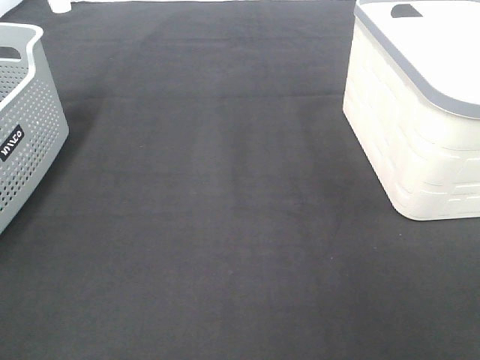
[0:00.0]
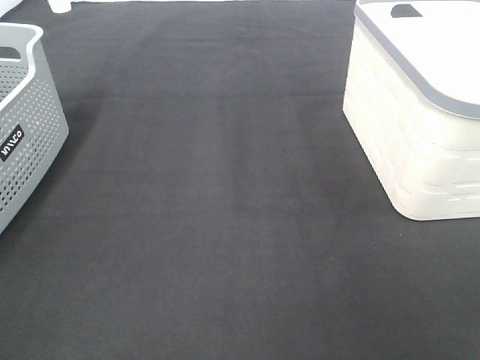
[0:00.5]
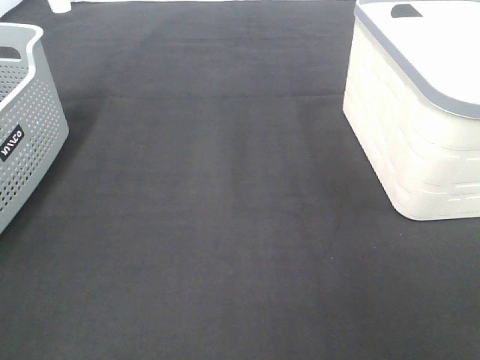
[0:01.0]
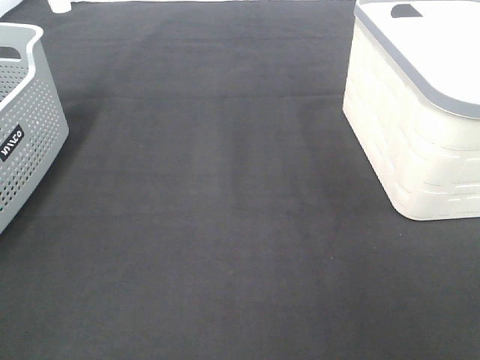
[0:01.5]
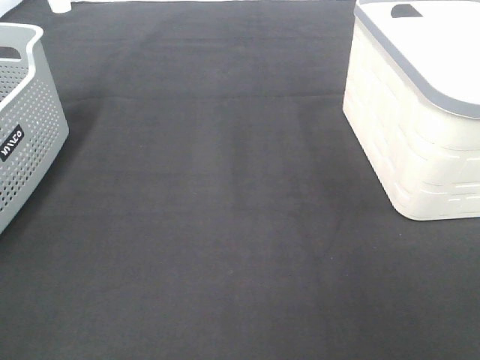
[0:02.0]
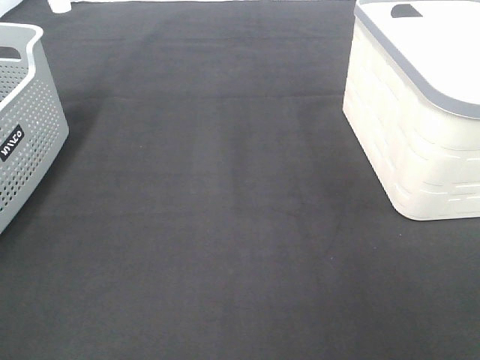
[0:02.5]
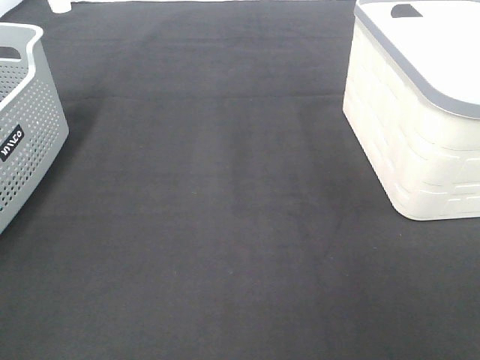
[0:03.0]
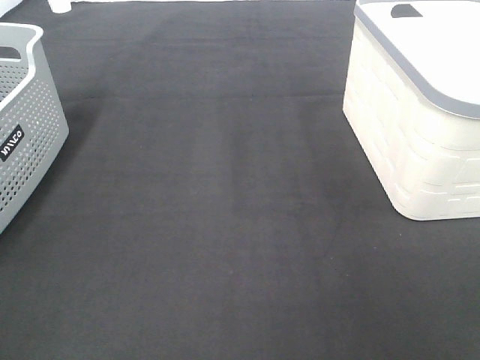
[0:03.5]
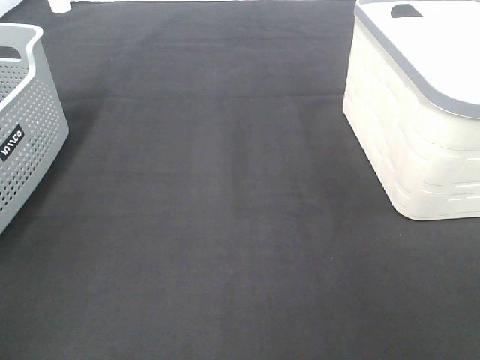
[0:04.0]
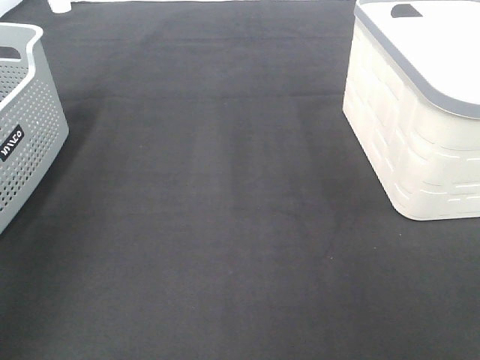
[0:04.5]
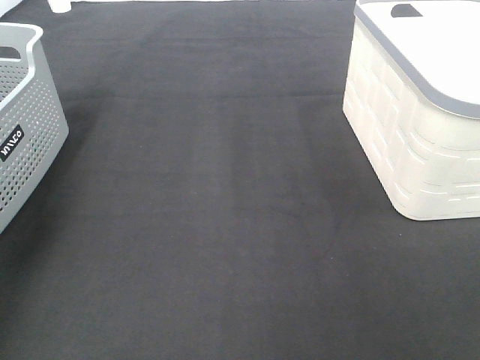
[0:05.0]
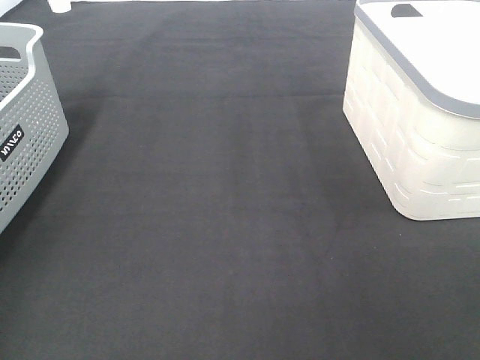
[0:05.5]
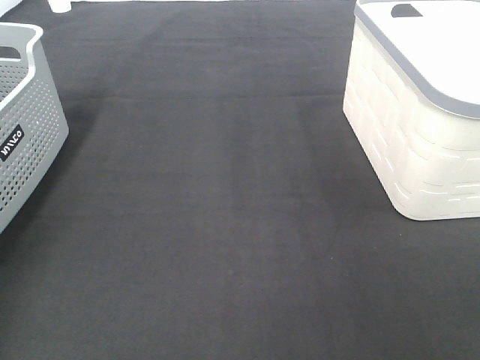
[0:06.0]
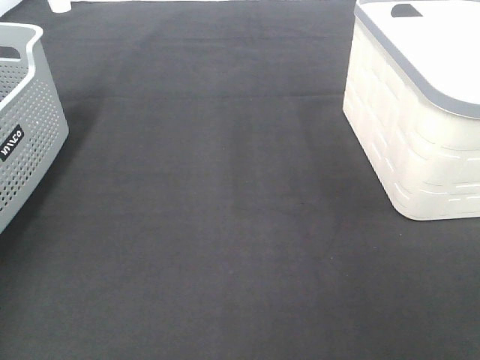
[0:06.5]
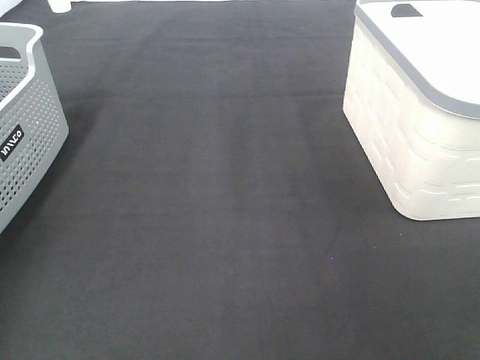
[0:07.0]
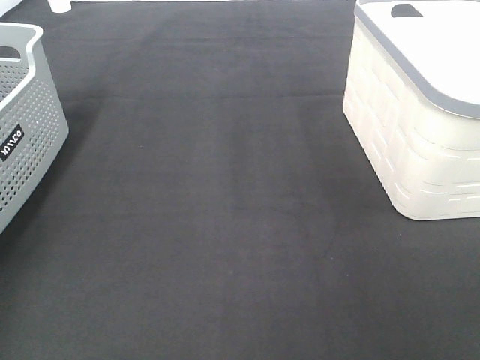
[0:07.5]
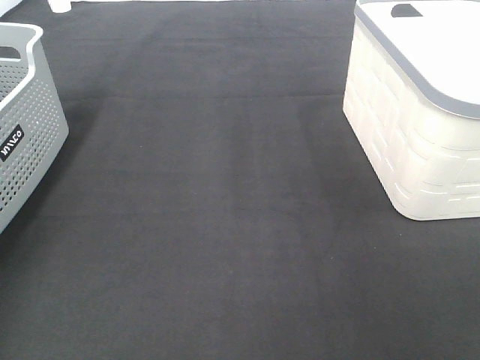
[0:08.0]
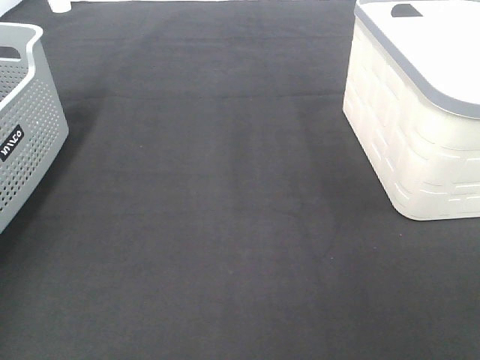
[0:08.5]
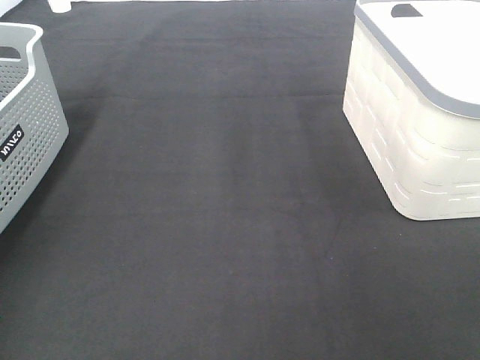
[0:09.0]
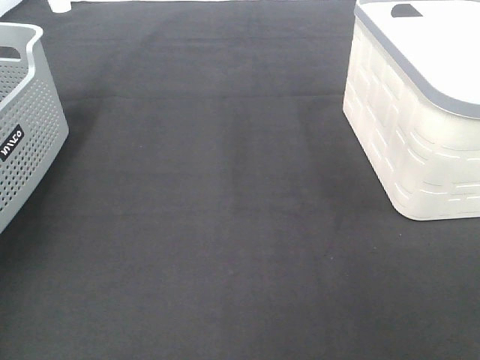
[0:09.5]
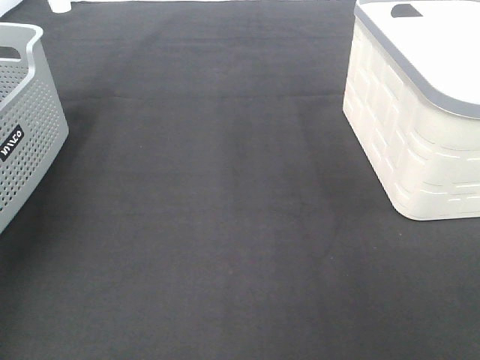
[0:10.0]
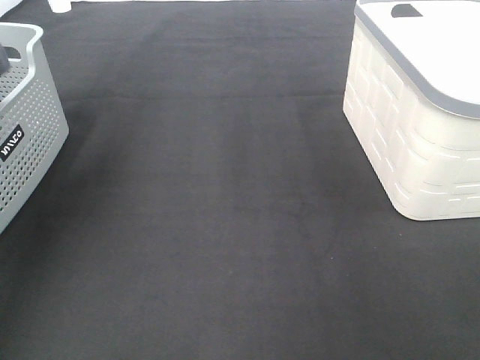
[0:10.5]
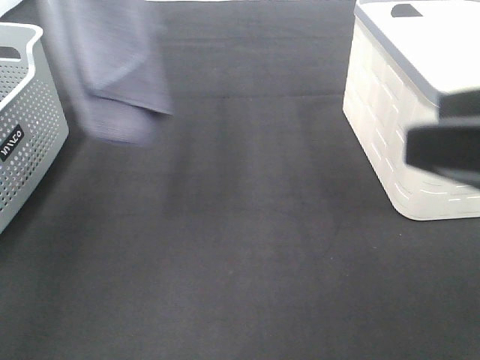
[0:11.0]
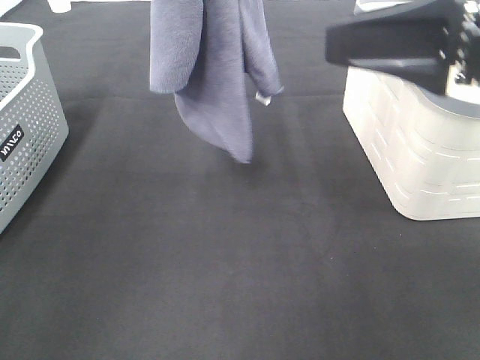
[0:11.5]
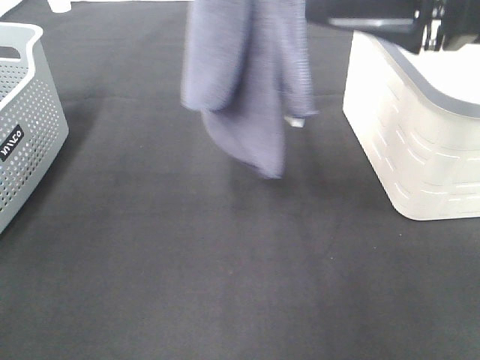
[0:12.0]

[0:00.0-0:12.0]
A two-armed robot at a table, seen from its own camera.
Task of the whole recording: Remove the towel and place it.
0:00.0 to 0:02.0: Neither gripper changes place.
0:10.0 to 0:12.0: The left gripper is displaced to the right by roughly 25 cm. The right gripper is displaced forward by about 25 cm.

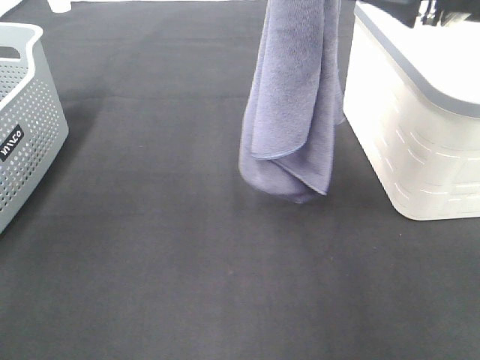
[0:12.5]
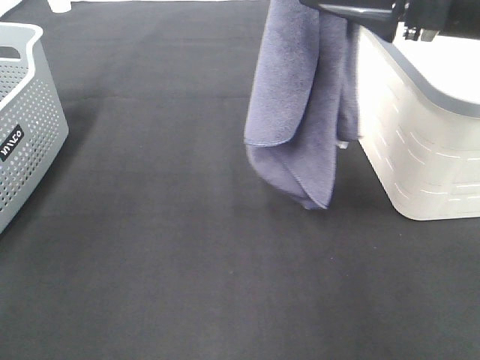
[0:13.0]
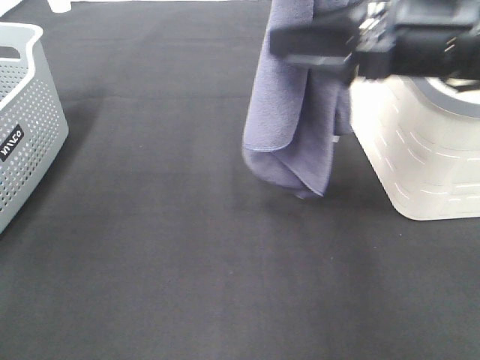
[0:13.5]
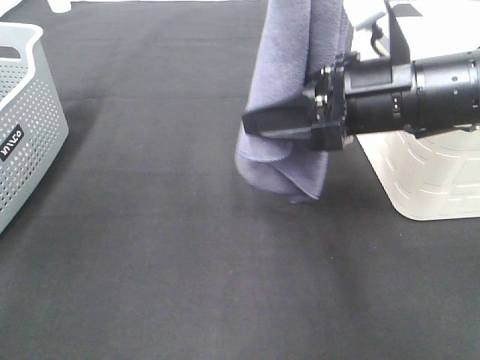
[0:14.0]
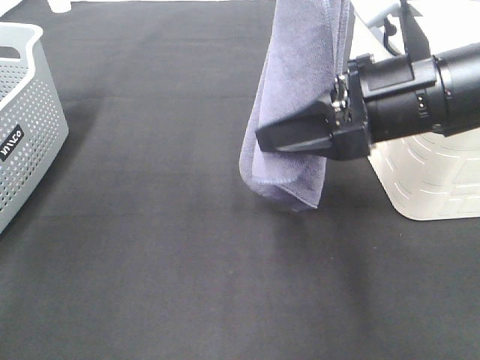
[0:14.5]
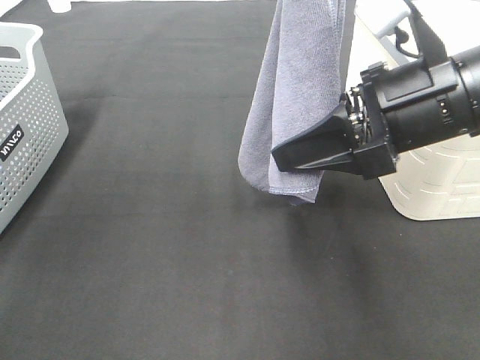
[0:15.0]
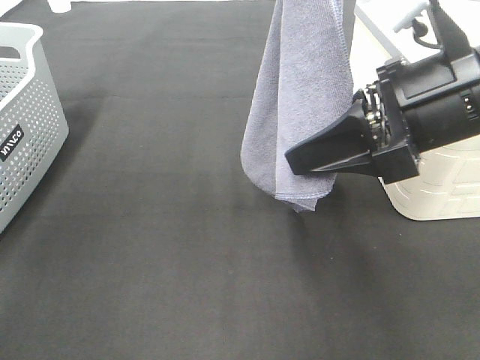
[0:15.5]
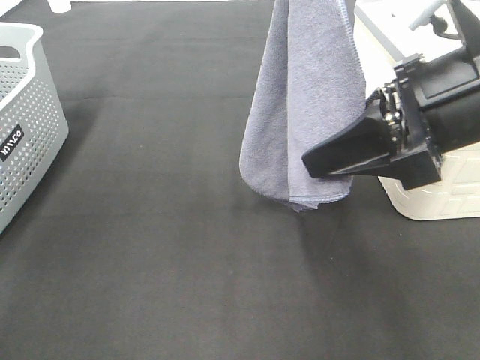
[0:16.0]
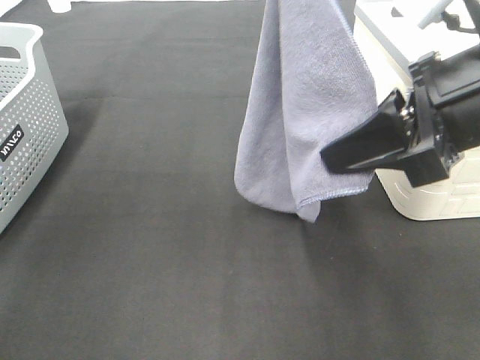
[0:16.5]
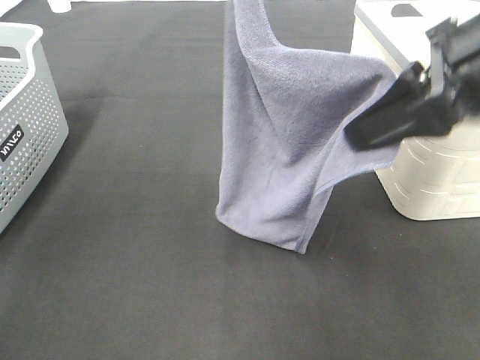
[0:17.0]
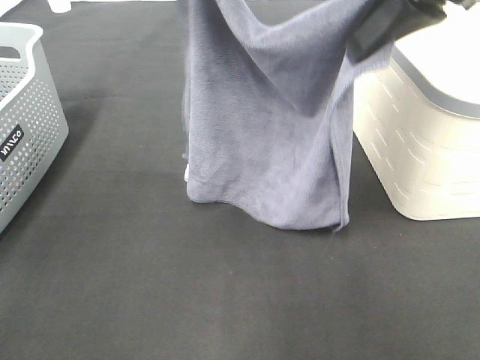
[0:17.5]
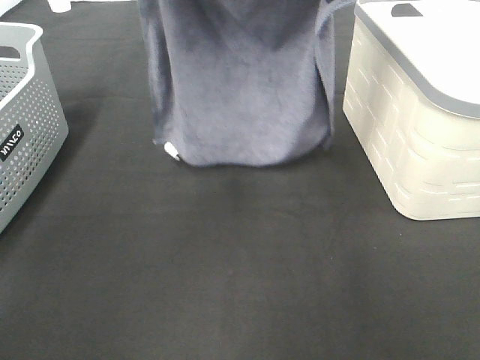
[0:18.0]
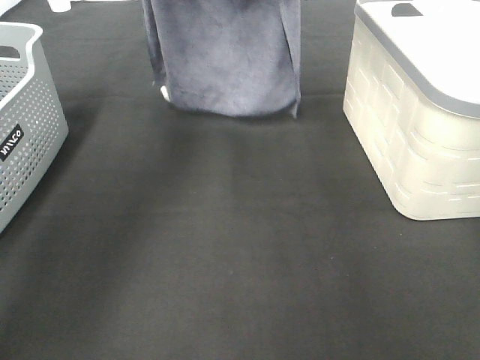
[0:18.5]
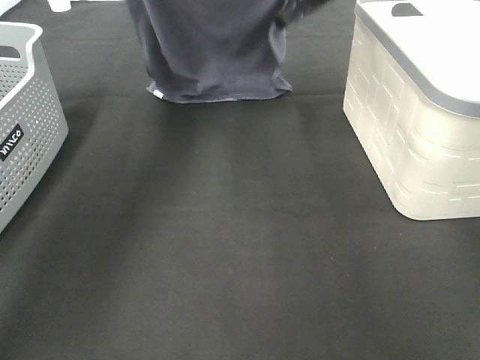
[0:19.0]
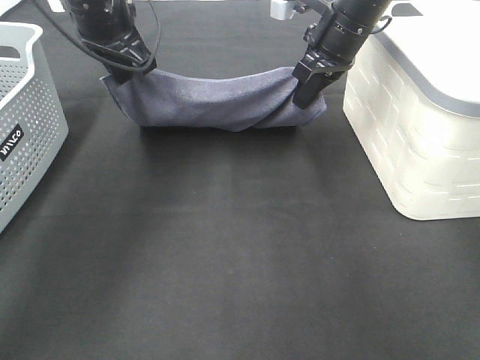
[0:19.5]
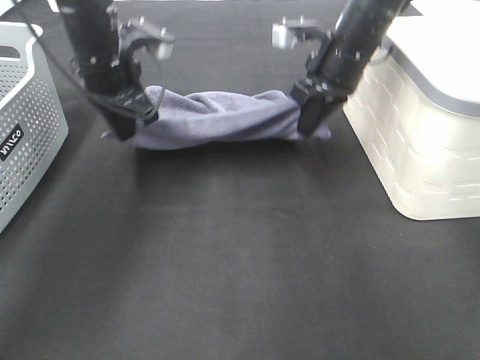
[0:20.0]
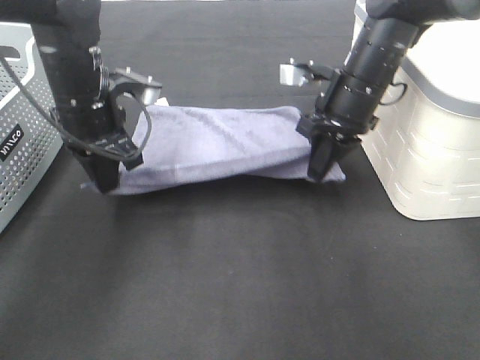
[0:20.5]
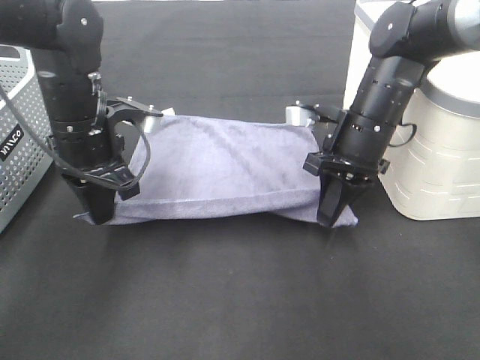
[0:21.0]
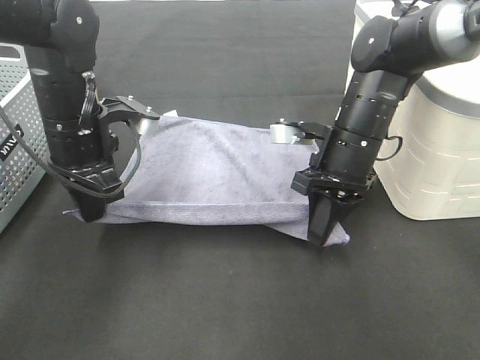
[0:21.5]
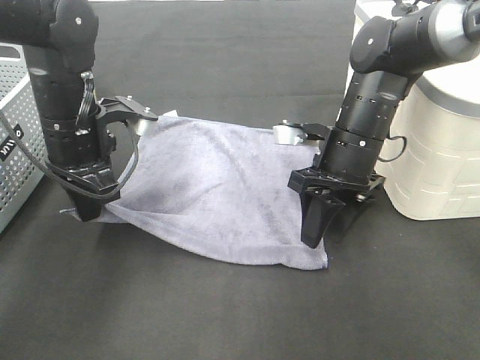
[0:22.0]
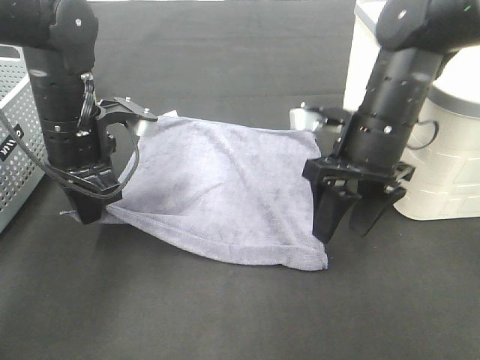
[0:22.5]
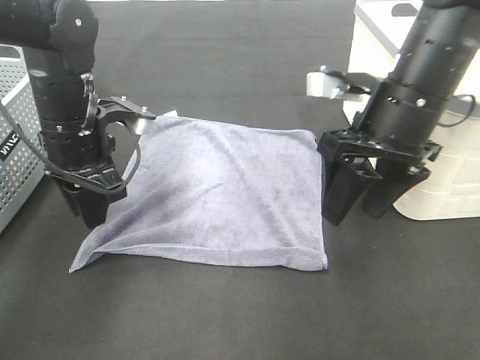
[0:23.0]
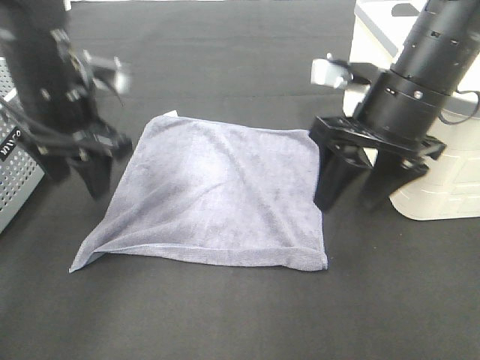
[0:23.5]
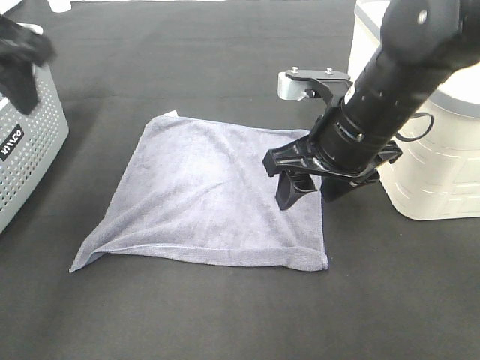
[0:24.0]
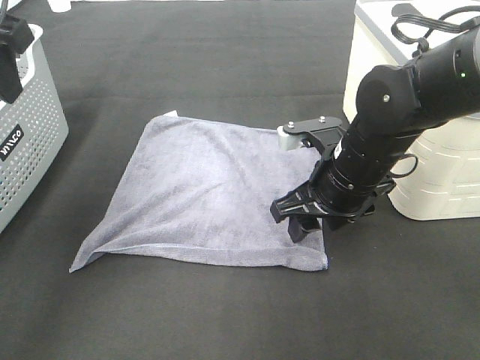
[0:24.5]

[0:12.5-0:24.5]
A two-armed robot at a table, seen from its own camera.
Task of the whole recording: Remove the towel and place it.
Step, 0:12.5 to 0:14.5: Right hand: grab a corner of the grey towel and straighten it.
Step, 0:15.0 to 0:17.5: Right hand: spread the grey towel flat on the table.
Step, 0:15.0 to 0:18.0: Left hand: spread the grey towel flat on the table.
Step, 0:18.5 to 0:22.0: Right hand:adjust the gray towel.
0:12.5 to 0:14.5: The right gripper is displaced downward by some 10 cm.
0:14.5 to 0:16.5: The right gripper moves roughly 5 cm, and closes.
0:16.5 to 0:18.5: The left gripper moves forward, to the left and downward, approximately 20 cm, while the right gripper heads forward, covering roughly 30 cm.
0:18.5 to 0:20.5: Both grippers travel together downward and backward, roughly 20 cm.
0:20.5 to 0:22.5: The right gripper goes approximately 10 cm backward, and opens up.
0:22.5 to 0:24.5: The left gripper is displaced upward and to the left by roughly 20 cm, and opens. Meanwhile the right gripper shifts by some 5 cm.

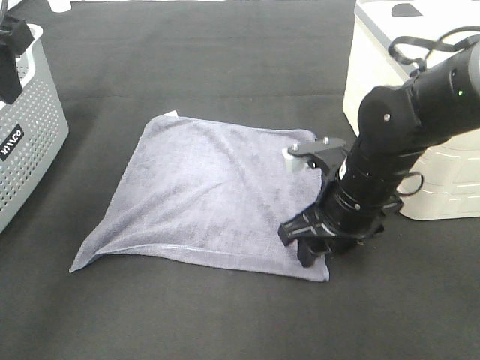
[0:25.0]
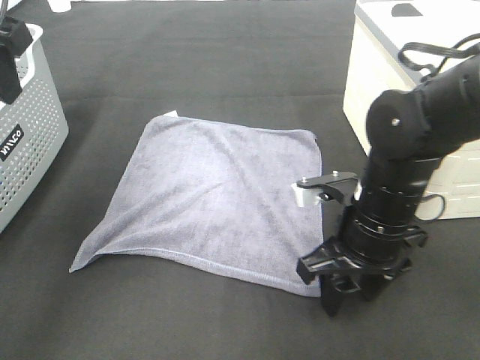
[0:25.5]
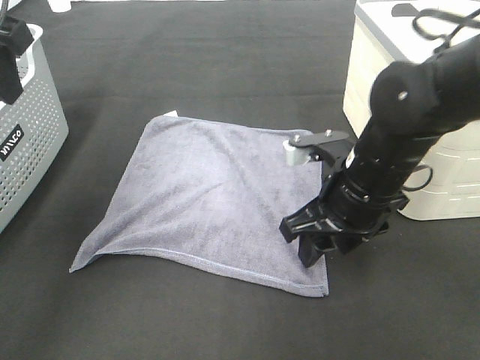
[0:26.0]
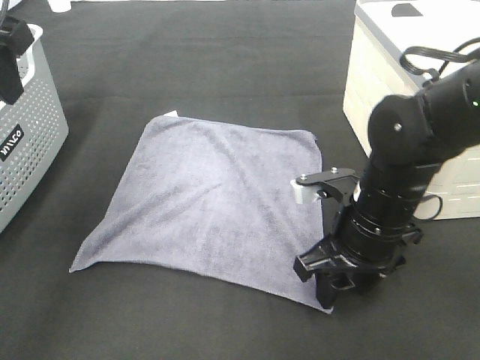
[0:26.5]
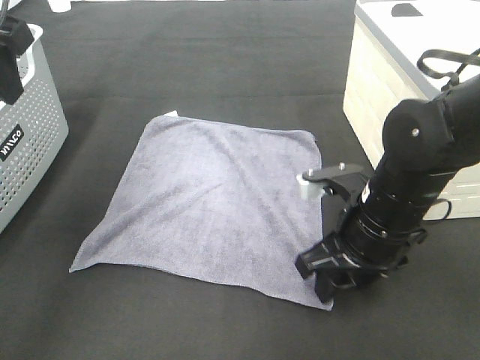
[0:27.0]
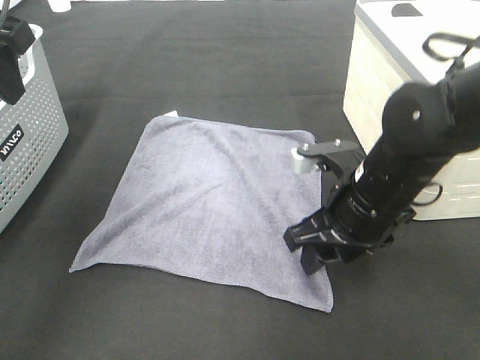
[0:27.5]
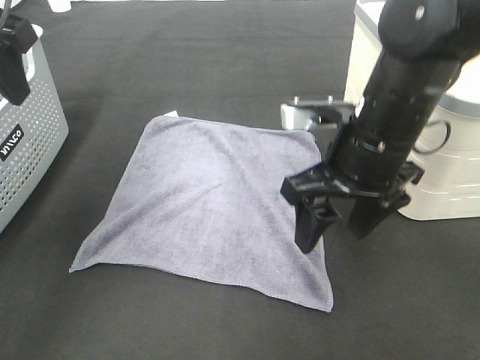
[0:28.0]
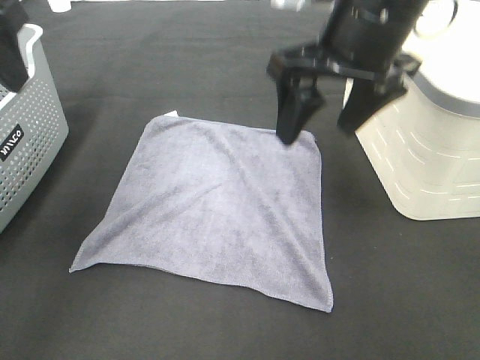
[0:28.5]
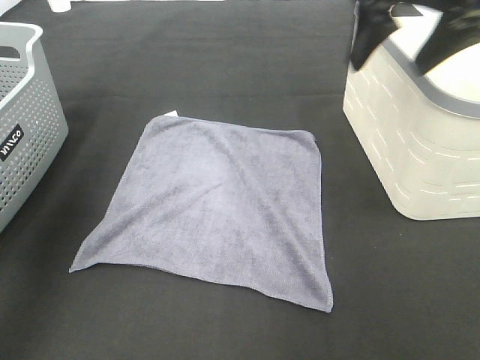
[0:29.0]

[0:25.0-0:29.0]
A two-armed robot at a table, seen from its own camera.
Task of the whole recording: Remove the towel and place it.
0:25.0 to 0:27.0: The grippers stay close to where they were, moving slightly.
0:27.0 to 0:29.0: The left gripper travels to the left by some 5 cm. Meanwhile the right gripper is displaced upward by roughly 25 cm.
